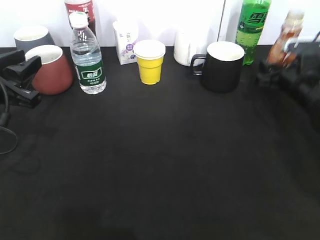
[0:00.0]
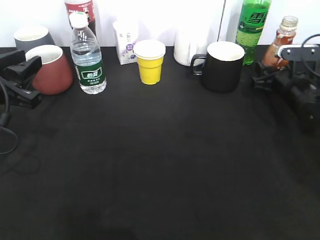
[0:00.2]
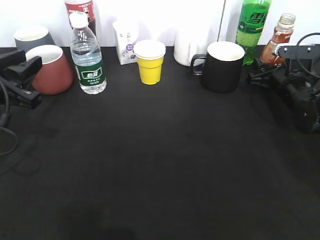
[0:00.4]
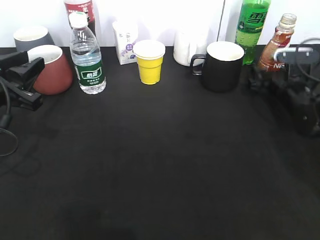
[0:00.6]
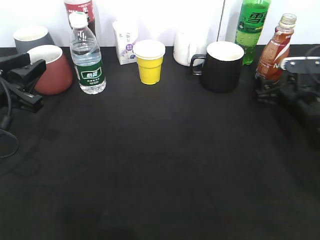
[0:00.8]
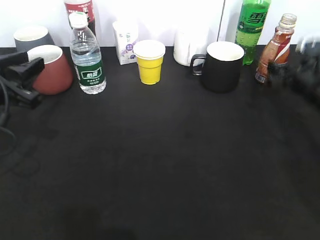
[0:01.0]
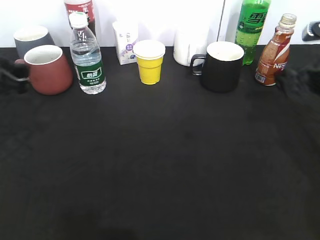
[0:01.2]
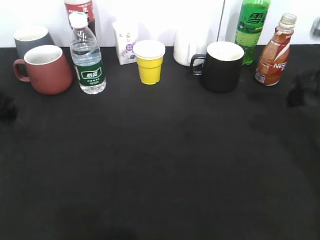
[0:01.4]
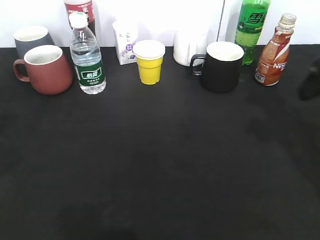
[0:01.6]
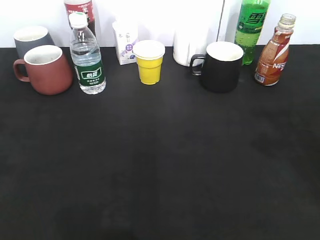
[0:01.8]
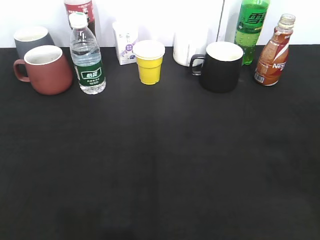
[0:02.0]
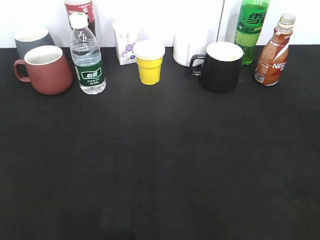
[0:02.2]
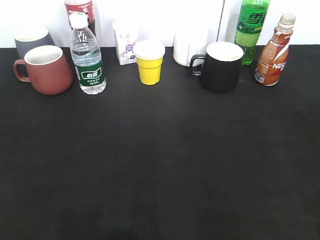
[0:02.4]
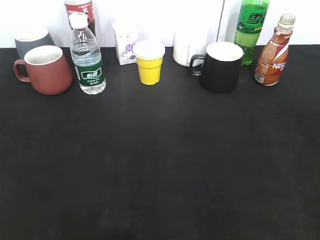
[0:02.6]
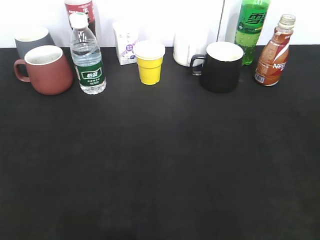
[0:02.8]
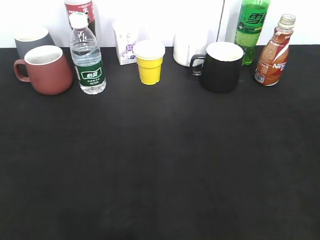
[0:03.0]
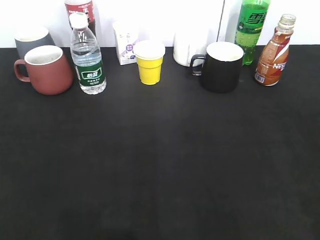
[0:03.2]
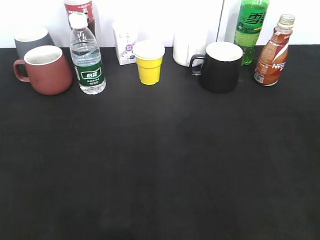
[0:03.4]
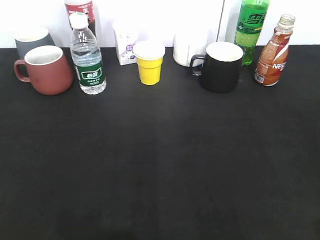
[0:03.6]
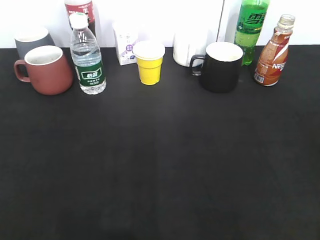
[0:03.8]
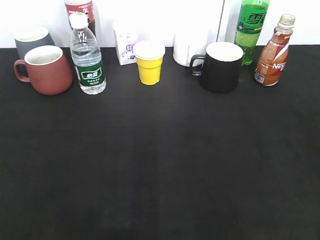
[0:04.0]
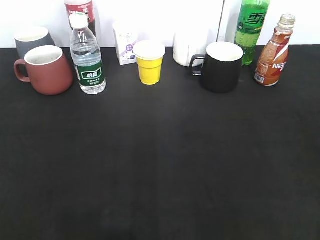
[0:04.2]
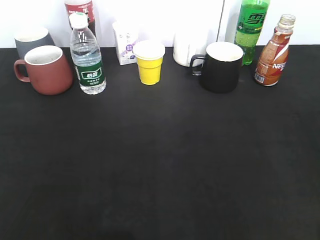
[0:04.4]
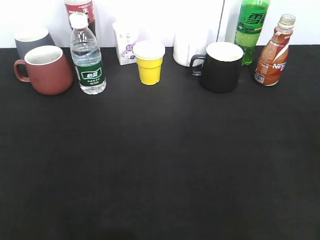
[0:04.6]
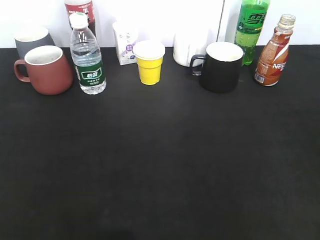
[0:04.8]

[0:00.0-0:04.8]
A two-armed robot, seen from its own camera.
0:00.0 to 0:01.6: The left gripper travels upward by about 10 cm, and opens up, while the right gripper travels upward and backward by about 20 cm, and opens its fingers.
0:01.6 to 0:03.2: The grippers both shift backward by some 20 cm.

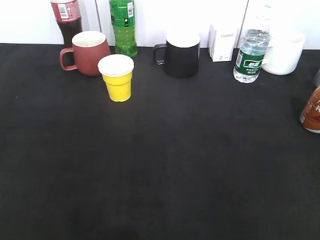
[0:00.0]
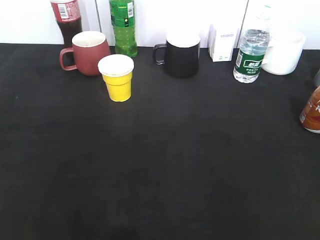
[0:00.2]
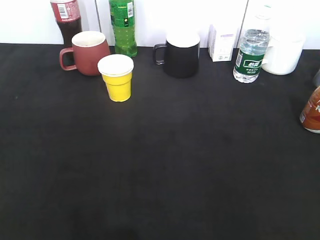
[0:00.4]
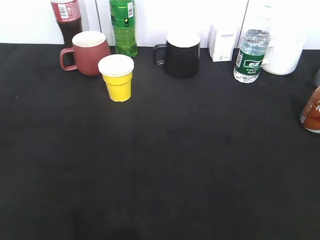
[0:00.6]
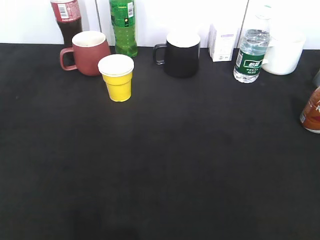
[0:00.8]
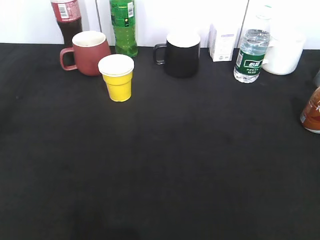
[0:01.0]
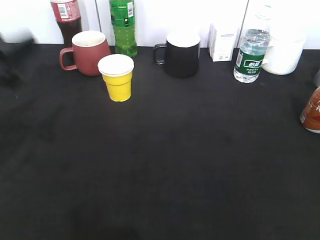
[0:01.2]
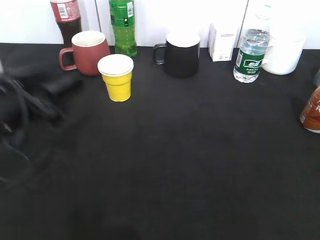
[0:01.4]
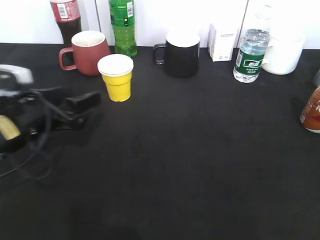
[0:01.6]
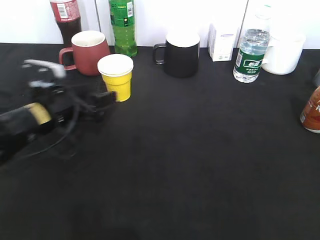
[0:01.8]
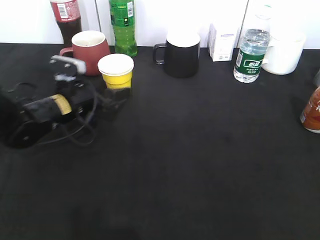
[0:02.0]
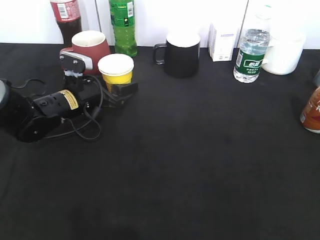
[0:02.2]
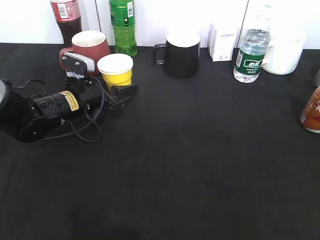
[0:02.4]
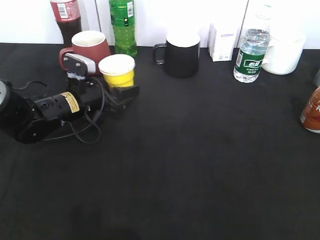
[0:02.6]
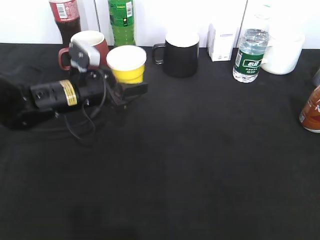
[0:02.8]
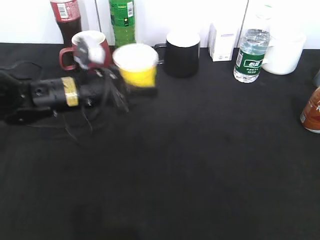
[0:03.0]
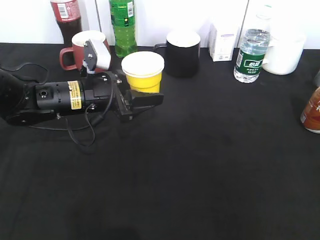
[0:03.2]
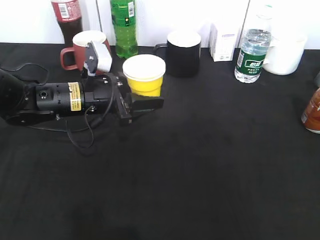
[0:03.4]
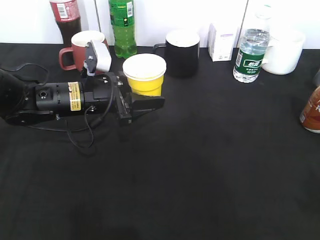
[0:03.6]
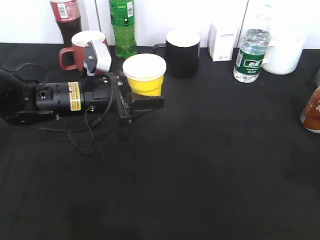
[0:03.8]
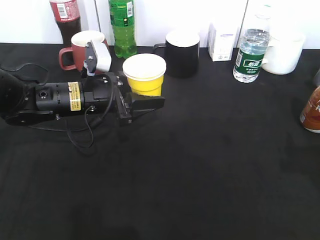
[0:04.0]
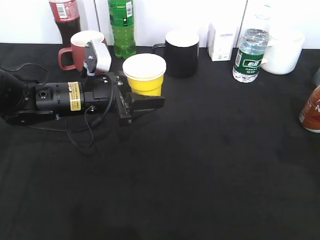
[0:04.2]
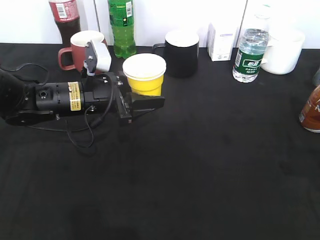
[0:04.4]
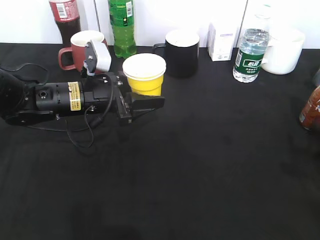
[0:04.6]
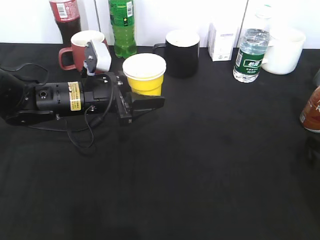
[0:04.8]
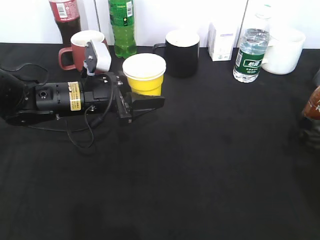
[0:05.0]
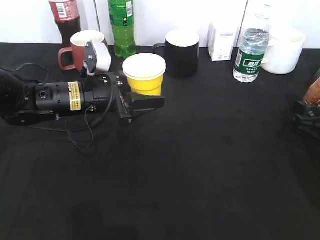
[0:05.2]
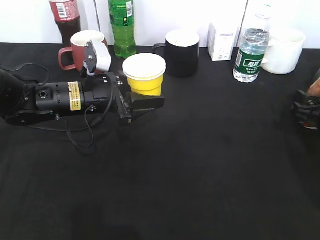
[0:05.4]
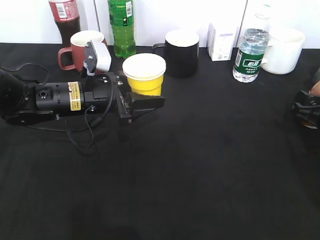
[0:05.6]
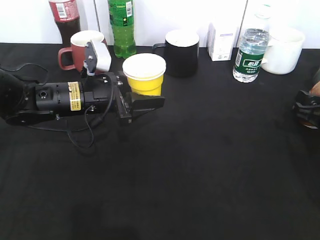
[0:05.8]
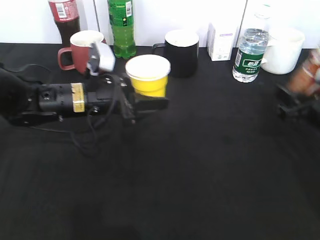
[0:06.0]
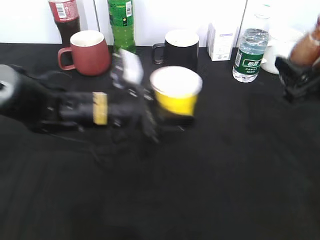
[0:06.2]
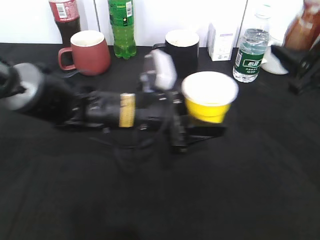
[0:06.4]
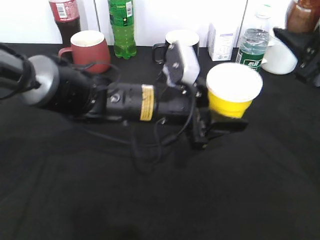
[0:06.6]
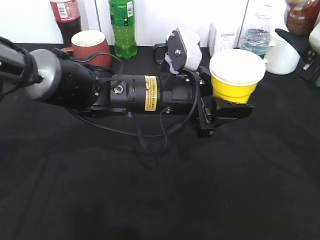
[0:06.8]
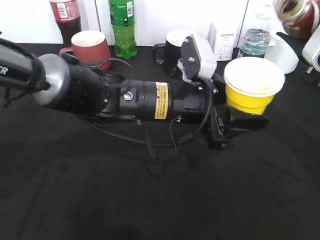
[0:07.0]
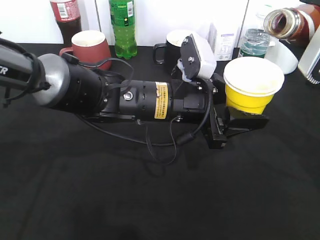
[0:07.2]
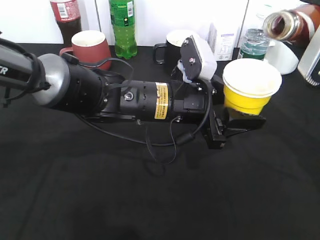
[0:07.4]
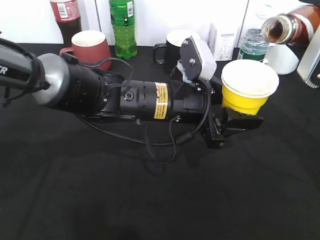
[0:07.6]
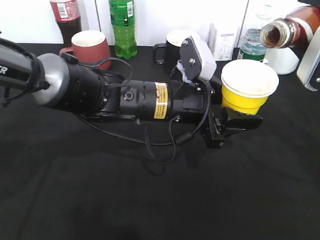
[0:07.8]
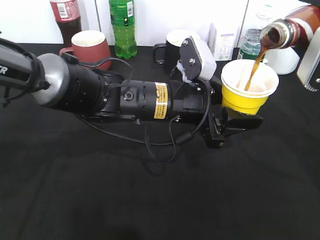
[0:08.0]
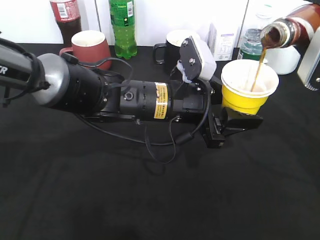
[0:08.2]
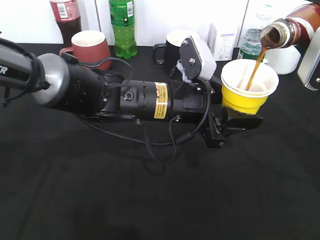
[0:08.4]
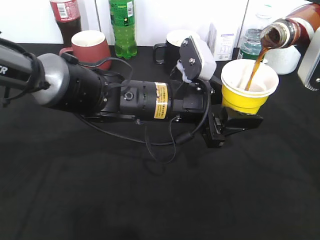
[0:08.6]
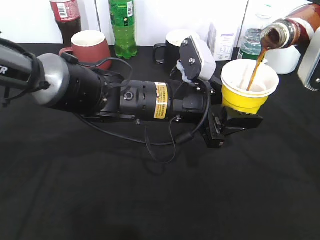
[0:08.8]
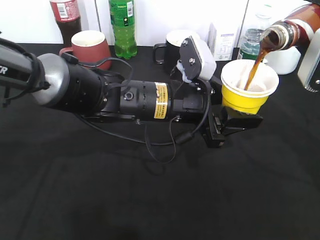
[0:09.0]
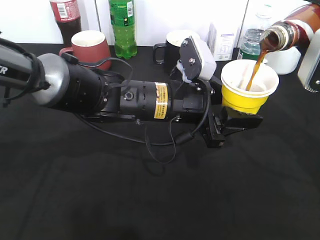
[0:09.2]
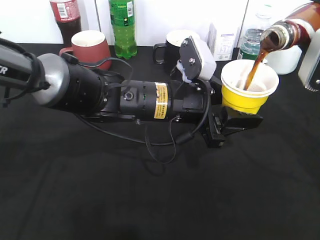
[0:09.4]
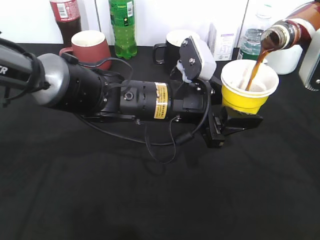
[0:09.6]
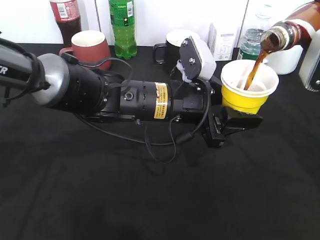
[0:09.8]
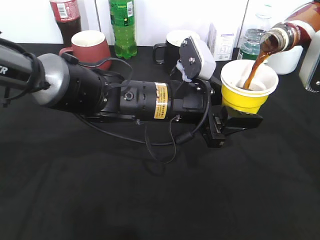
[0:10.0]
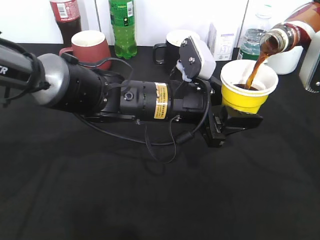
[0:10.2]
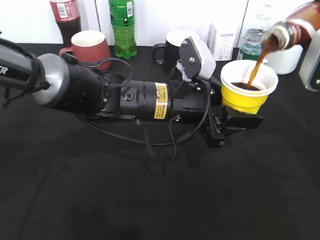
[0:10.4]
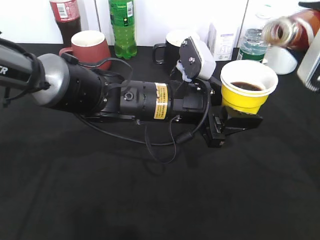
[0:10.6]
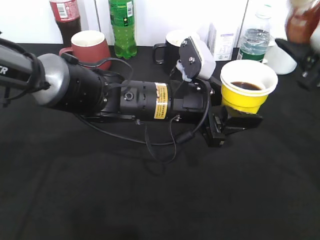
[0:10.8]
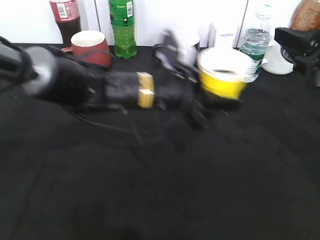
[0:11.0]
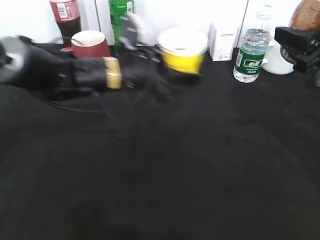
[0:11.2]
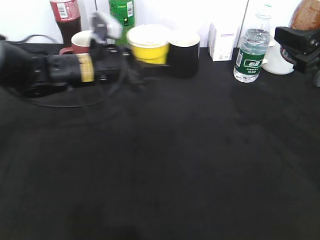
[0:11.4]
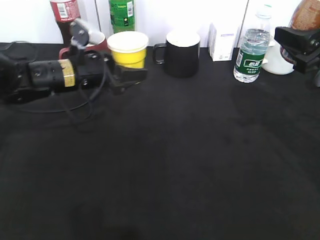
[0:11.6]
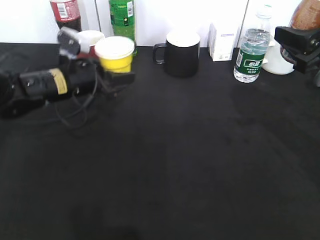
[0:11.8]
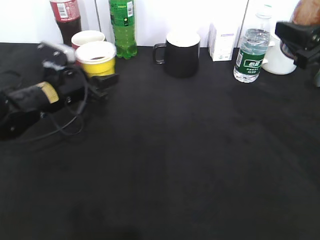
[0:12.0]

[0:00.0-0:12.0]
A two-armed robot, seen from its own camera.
Step, 0:01.2 to 0:02.4: Grasp the yellow paper cup with left gripper.
Step, 0:02.6 to 0:04.2: Lift the yellow paper cup with left gripper.
Step, 0:05.8 to 0:10.6: Pour the coffee from bottle to cup with right gripper.
0:00.0 to 0:01.6: The left gripper is displaced forward, downward and to the right by some 35 cm.
0:01.6 to 0:03.0: The left gripper moves to the right and forward, roughly 10 cm, and closes its fingers.
0:03.0 to 0:04.4: The right gripper shifts some 20 cm forward and downward.
0:04.4 to 0:06.0: The right gripper travels forward by some 10 cm, and opens, then closes again.
0:06.0 to 0:07.6: The right gripper shifts about 10 cm upward, while the left gripper travels to the right and backward by roughly 15 cm.
0:07.6 to 0:10.4: There are only small adjustments of the grippers.
0:10.4 to 0:12.0: The left gripper moves to the left and forward, some 20 cm.

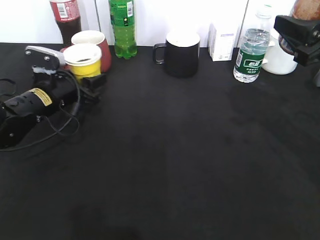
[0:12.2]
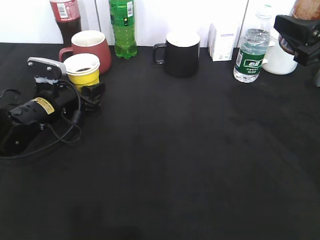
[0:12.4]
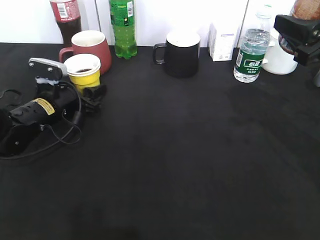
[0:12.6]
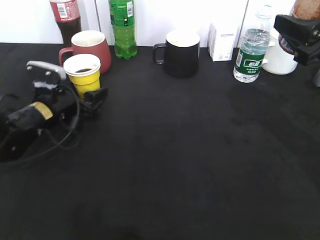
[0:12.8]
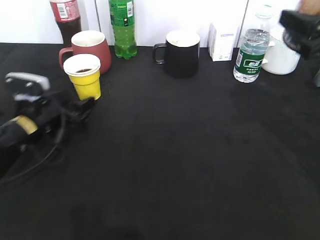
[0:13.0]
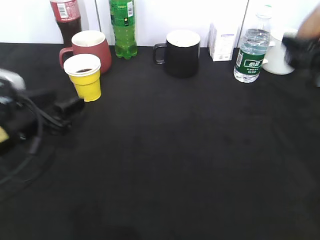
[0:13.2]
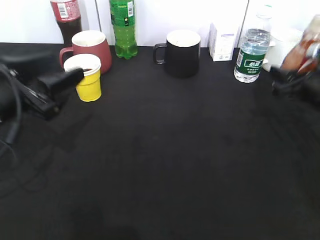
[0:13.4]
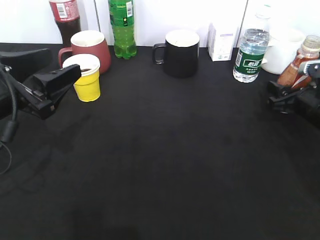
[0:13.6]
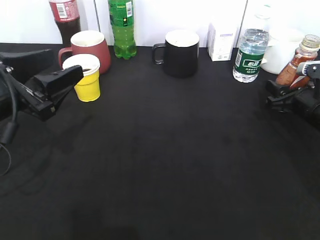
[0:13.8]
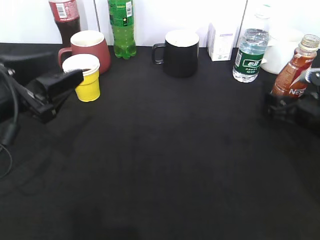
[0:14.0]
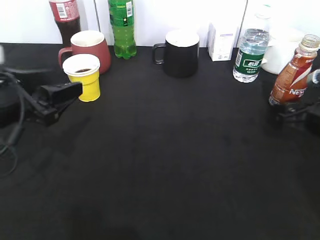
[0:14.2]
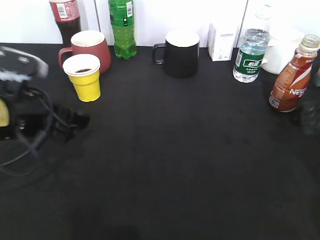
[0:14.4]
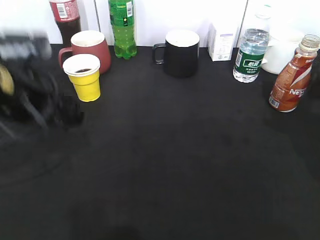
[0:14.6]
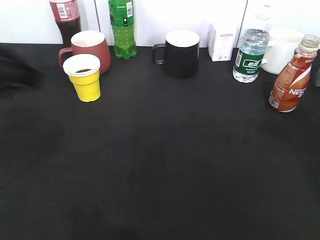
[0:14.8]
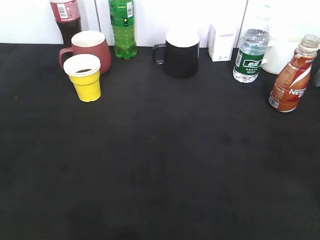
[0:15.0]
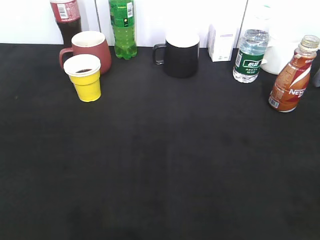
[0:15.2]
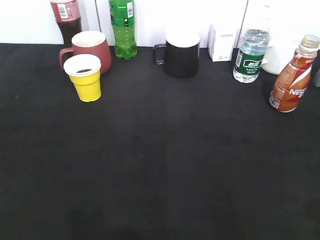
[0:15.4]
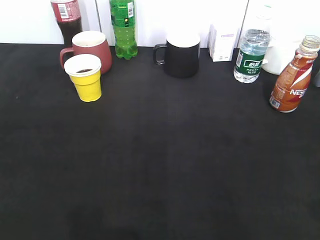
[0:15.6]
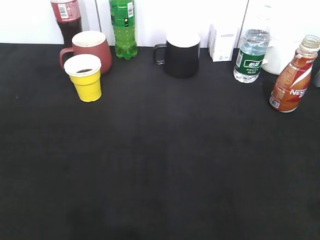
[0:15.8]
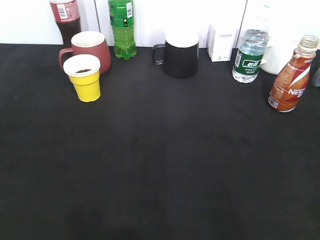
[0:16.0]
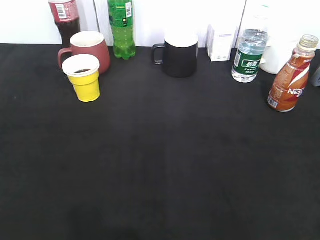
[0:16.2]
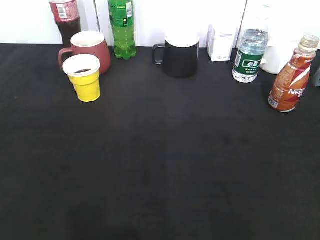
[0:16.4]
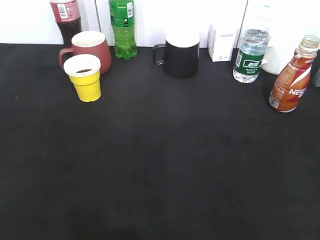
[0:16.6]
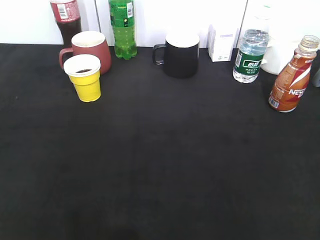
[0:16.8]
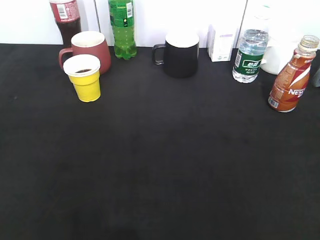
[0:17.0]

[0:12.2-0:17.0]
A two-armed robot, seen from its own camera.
Step, 0:12.8 to 0:13.8: Place the coffee bottle on the table with right gripper.
0:12.2 to 0:13.8: The right gripper heads downward, covering about 15 cm, while the left gripper is displaced backward and upward by roughly 15 cm.
0:13.8 to 0:15.4: The right gripper goes roughly 35 cm backward and upward, and opens and closes again, while the left gripper goes approximately 25 cm backward and to the left.
0:15.4 to 0:17.0: The left gripper closes.
